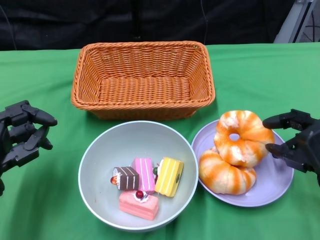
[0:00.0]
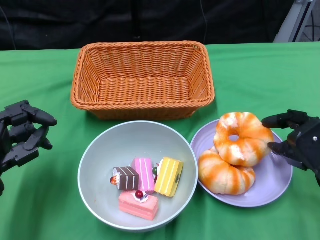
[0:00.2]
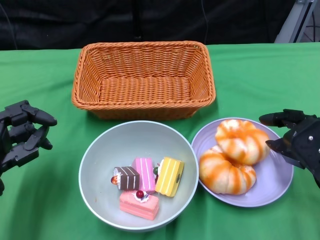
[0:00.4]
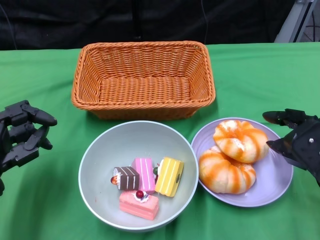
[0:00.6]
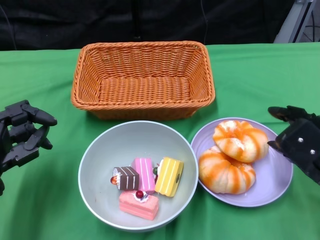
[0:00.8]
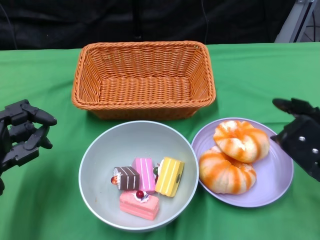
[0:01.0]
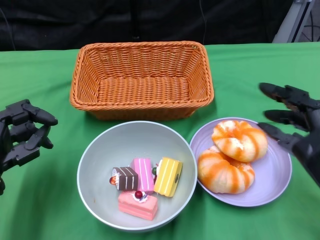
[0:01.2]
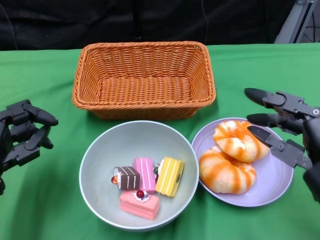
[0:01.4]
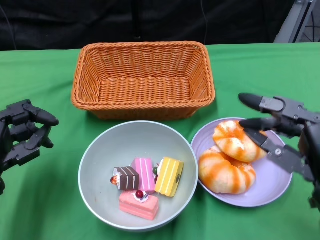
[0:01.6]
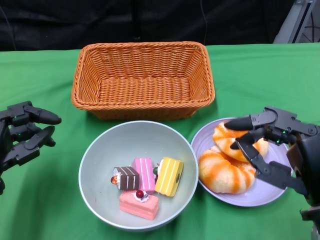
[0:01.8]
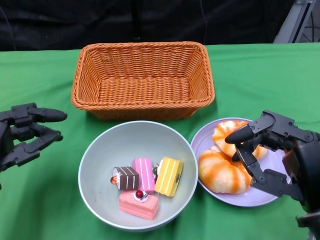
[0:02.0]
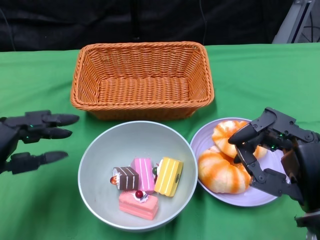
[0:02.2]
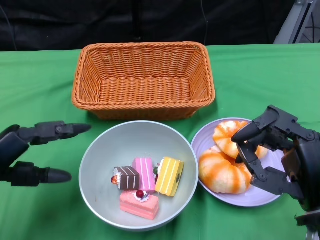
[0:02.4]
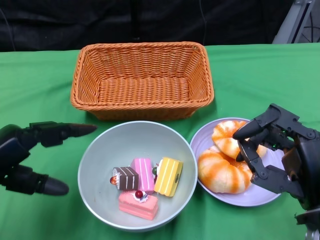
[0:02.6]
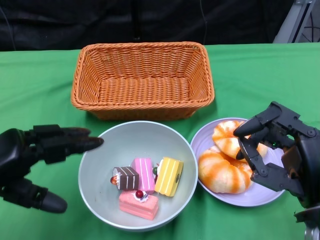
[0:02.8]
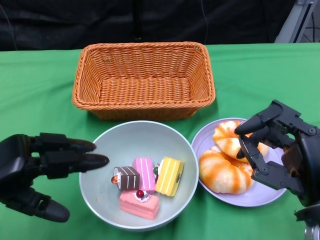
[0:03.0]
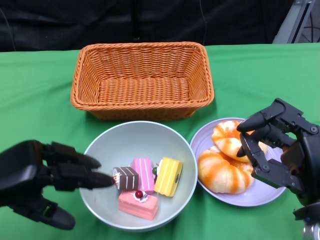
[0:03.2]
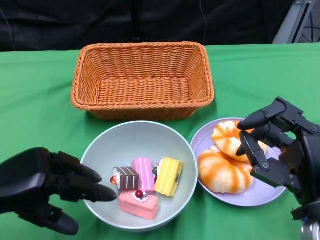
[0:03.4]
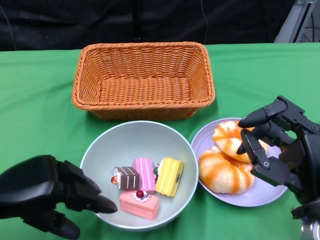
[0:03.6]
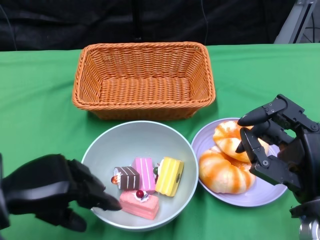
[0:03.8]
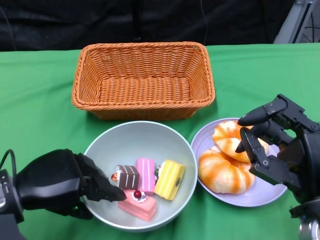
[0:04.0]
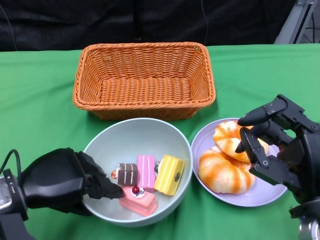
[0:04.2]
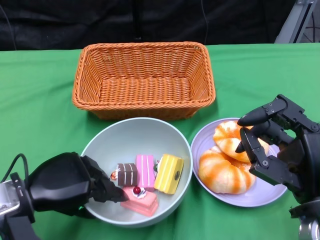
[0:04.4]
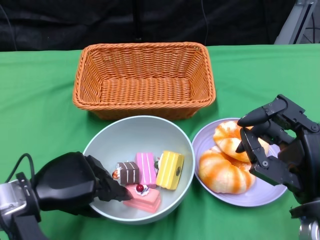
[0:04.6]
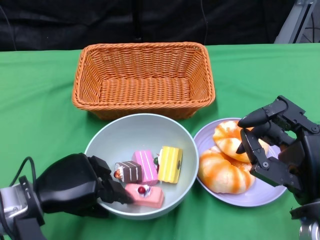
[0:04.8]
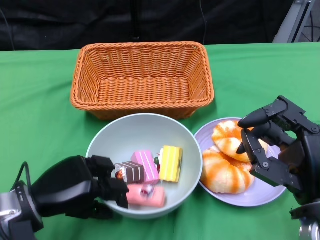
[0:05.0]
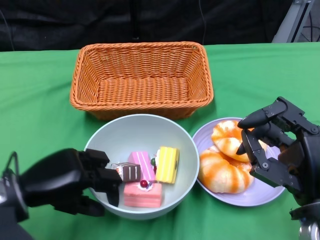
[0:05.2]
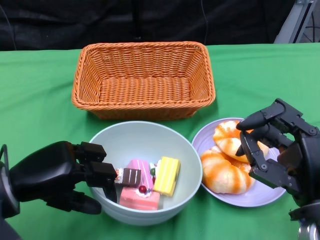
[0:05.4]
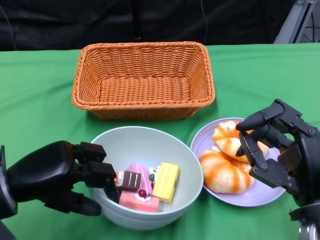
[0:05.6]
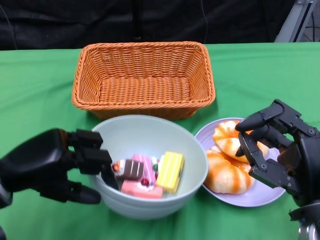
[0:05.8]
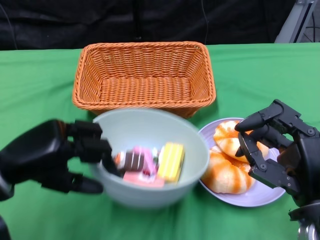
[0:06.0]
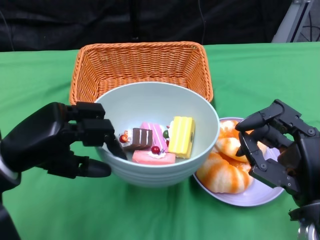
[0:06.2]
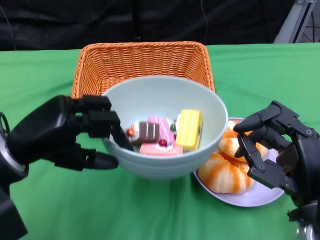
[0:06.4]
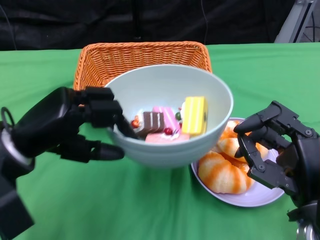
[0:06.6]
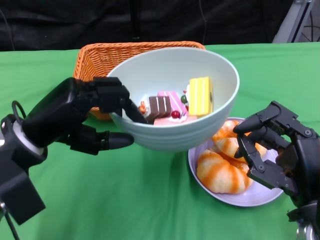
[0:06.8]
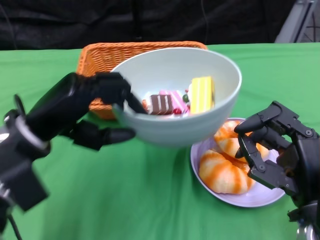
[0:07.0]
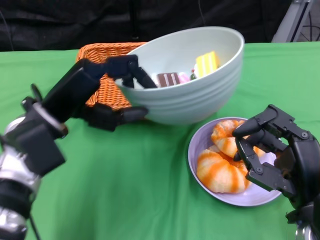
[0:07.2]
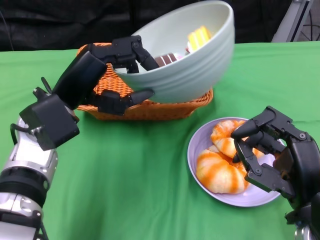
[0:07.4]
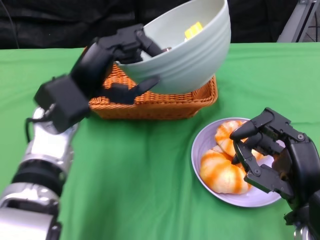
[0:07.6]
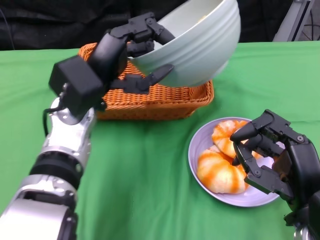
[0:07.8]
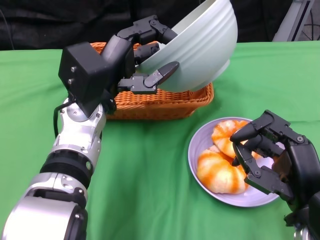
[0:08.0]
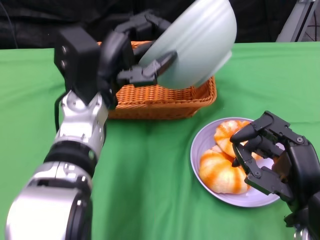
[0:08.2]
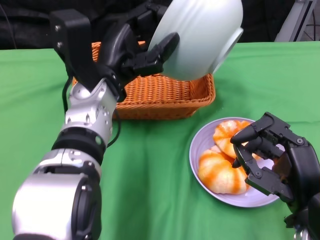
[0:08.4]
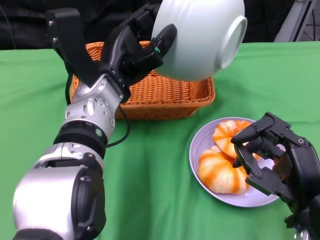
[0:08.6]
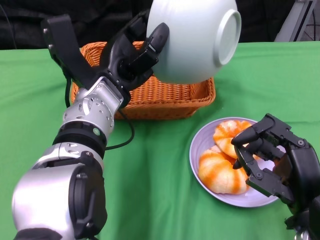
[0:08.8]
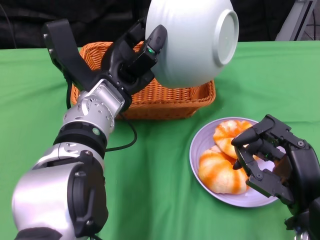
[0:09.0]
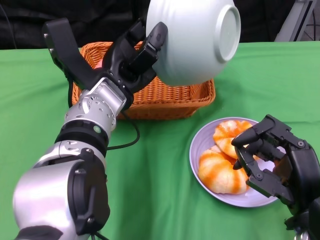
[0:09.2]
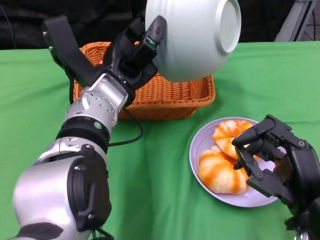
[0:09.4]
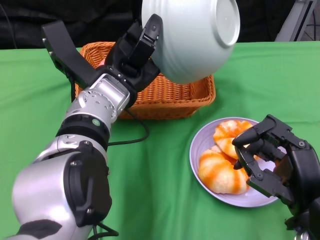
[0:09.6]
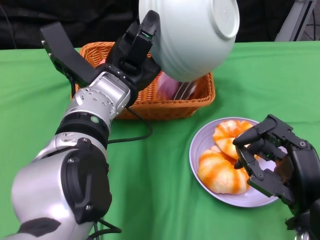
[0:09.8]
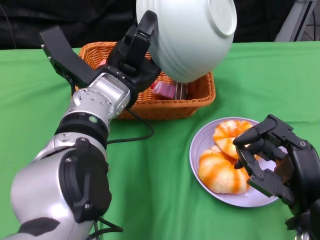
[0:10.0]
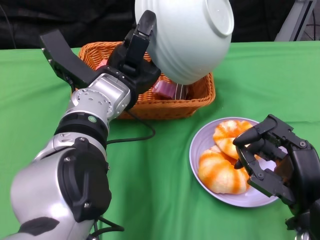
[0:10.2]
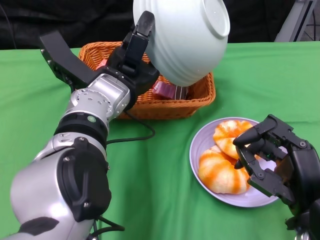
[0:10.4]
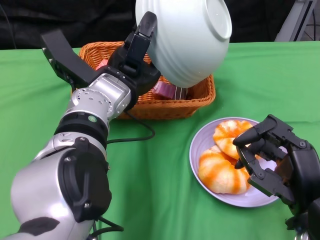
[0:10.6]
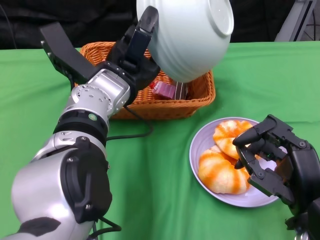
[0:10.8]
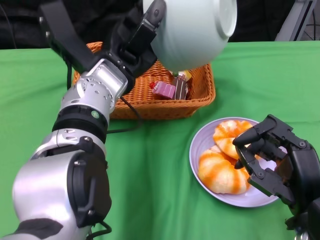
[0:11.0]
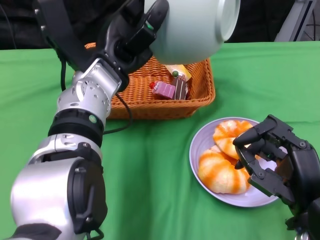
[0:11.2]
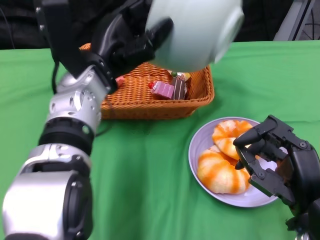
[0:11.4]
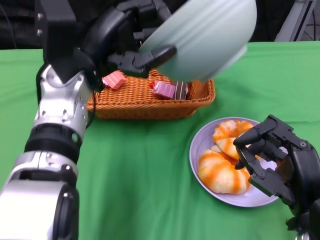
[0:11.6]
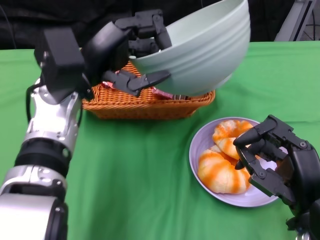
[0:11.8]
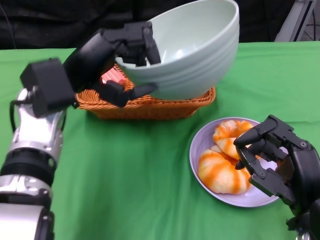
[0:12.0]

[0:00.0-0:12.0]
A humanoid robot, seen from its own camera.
Step, 0:01.2 to 0:05.0: Grasp the bowl with the left gripper.
0:00.0 to 0:01.6: The right hand travels backward and upward by some 10 cm.
0:01.6 to 0:03.0: The left hand heads upward, covering some 5 cm.
0:03.0 to 0:04.4: The left hand goes approximately 5 cm to the right.
0:04.4 to 0:06.0: The left hand goes about 5 cm upward.
0:06.0 to 0:07.6: The left hand heads to the right and forward, covering roughly 10 cm.
0:07.6 to 0:09.0: The left hand is displaced to the right by roughly 5 cm.
0:10.4 to 0:12.0: The left hand travels to the left by roughly 10 cm.

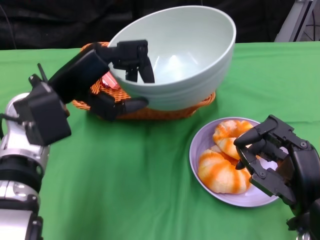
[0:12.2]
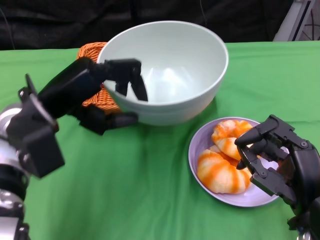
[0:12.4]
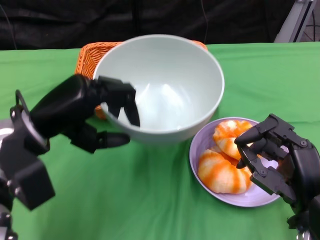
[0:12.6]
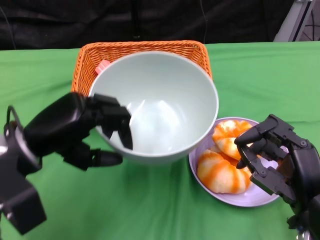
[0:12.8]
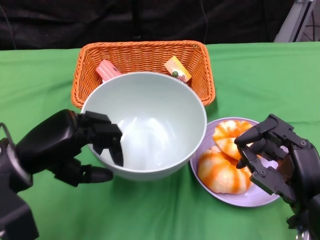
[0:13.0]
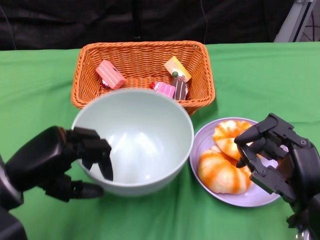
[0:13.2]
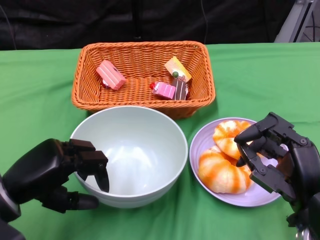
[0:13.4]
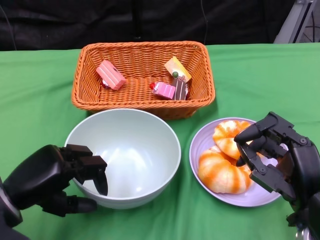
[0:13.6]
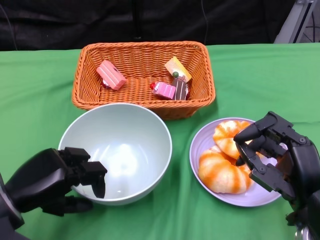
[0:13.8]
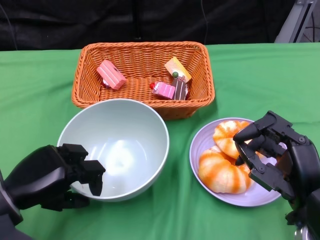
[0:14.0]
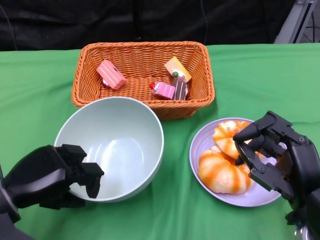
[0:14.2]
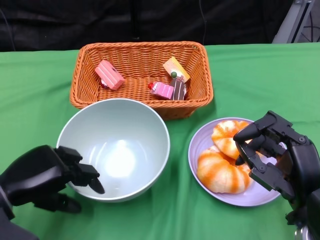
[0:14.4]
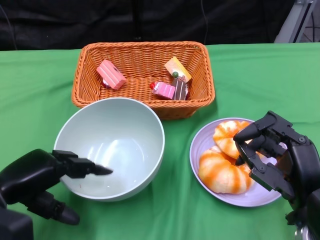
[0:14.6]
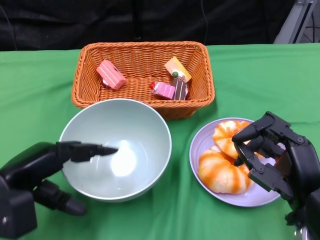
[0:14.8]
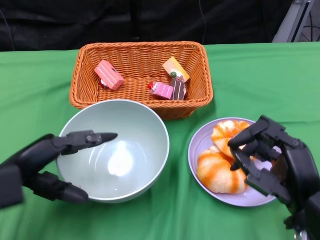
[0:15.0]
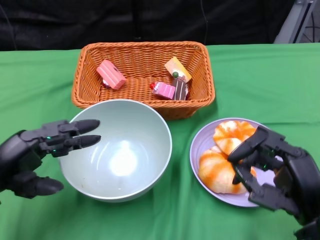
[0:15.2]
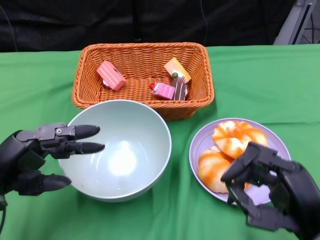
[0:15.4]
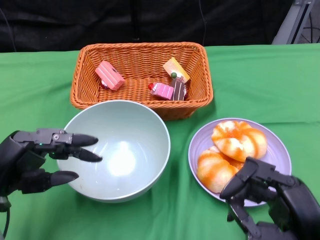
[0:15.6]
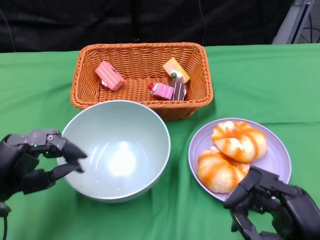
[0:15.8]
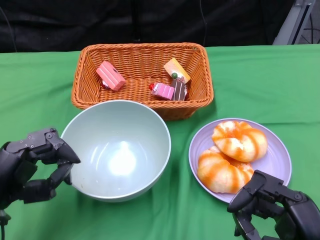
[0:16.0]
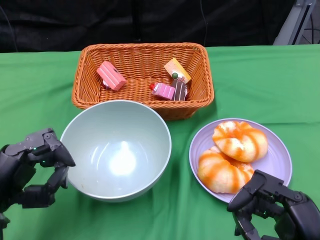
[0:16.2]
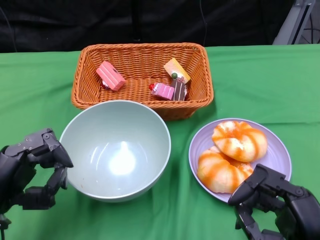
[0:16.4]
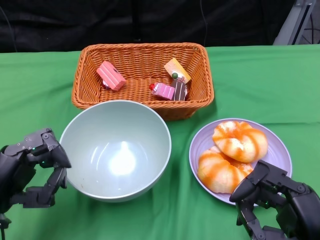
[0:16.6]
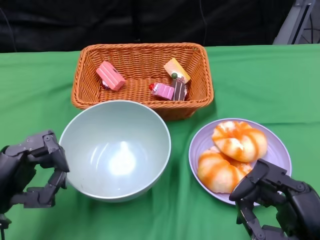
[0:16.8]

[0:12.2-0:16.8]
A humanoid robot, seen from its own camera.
Step, 0:12.4 to 0:15.0: Place the bowl on the table with the left gripper.
0:12.2 to 0:13.8: The left hand heads downward, backward and to the left, covering approximately 15 cm.

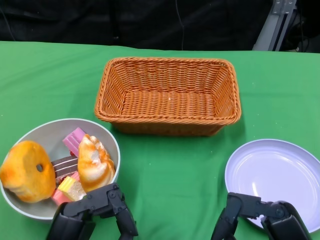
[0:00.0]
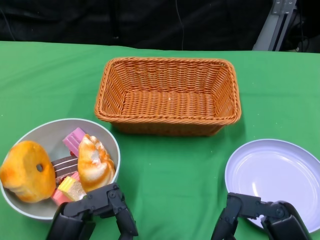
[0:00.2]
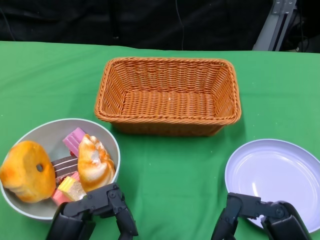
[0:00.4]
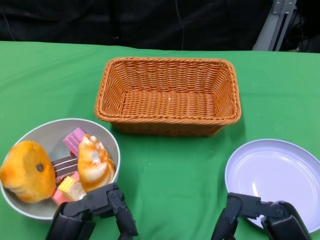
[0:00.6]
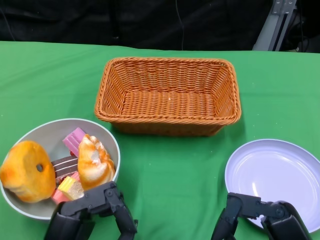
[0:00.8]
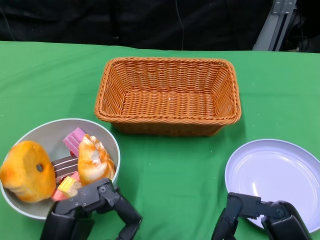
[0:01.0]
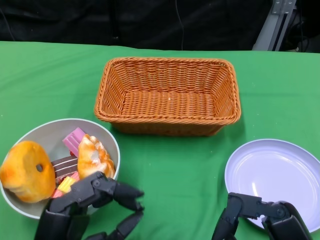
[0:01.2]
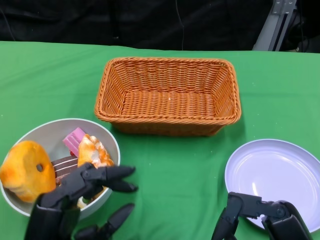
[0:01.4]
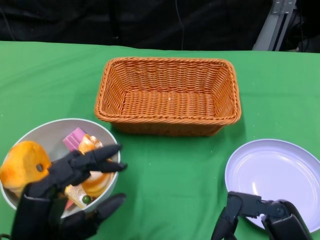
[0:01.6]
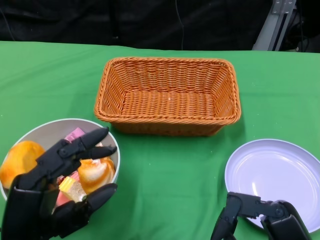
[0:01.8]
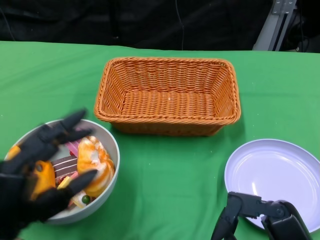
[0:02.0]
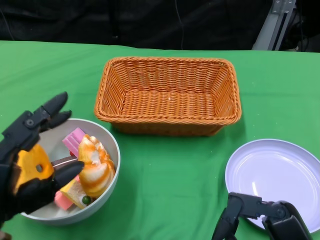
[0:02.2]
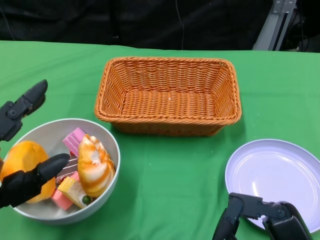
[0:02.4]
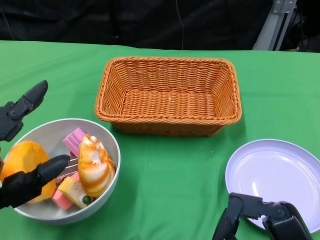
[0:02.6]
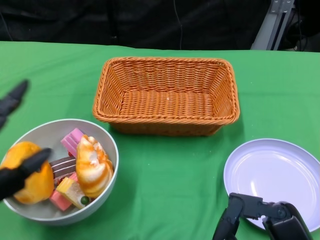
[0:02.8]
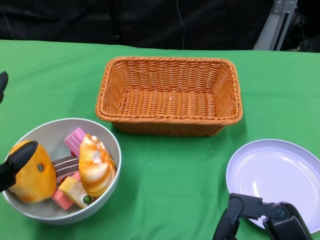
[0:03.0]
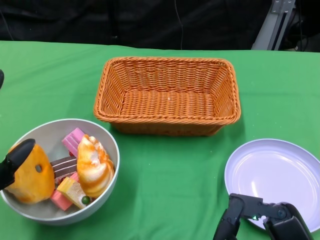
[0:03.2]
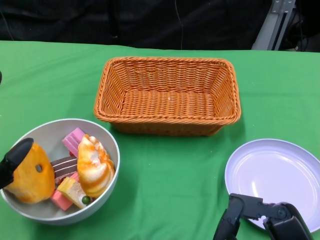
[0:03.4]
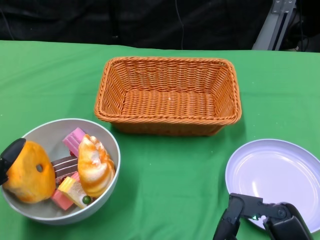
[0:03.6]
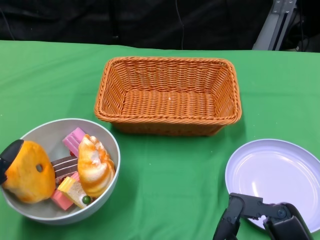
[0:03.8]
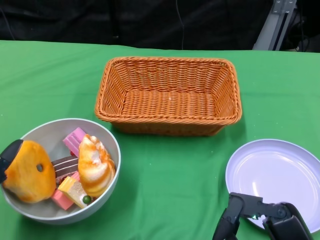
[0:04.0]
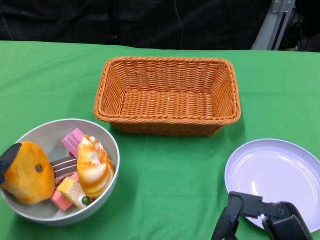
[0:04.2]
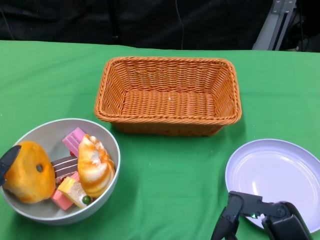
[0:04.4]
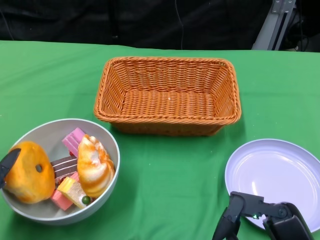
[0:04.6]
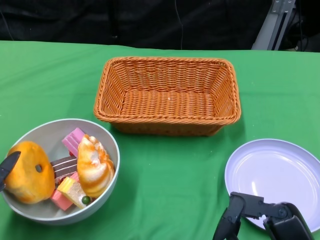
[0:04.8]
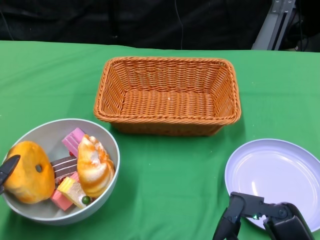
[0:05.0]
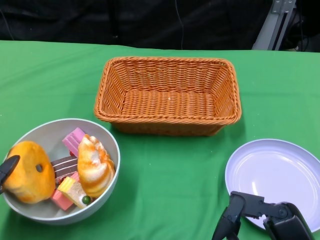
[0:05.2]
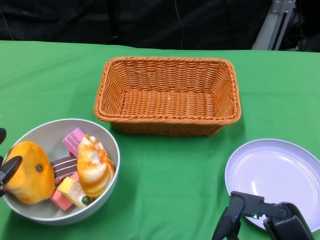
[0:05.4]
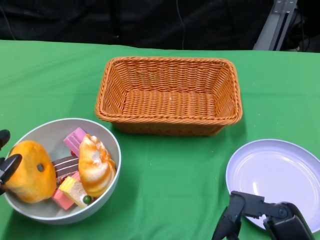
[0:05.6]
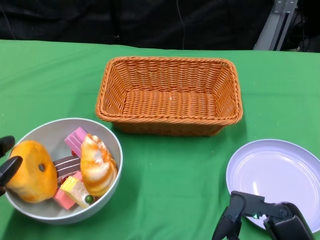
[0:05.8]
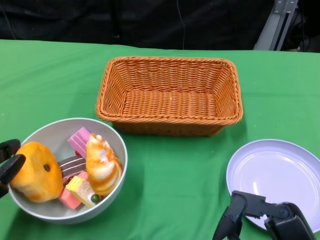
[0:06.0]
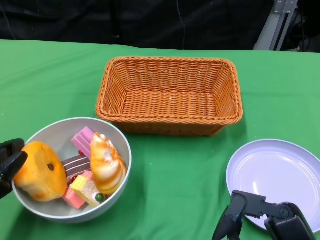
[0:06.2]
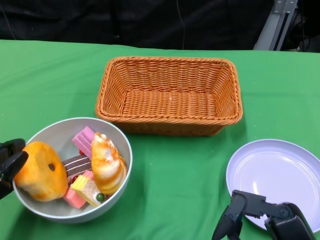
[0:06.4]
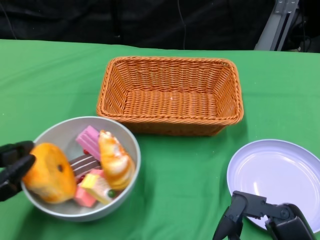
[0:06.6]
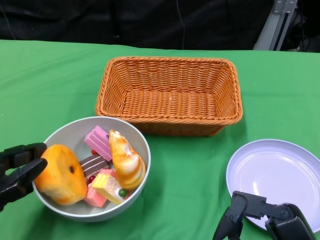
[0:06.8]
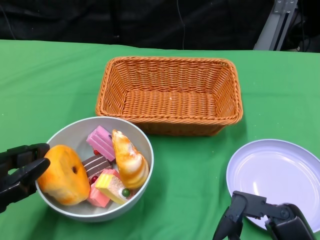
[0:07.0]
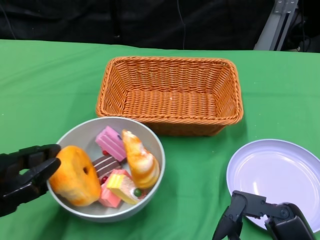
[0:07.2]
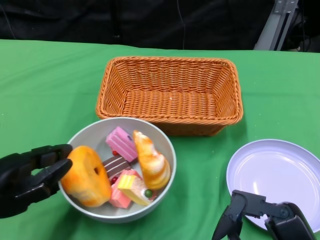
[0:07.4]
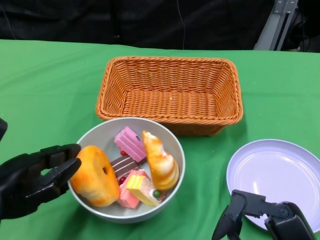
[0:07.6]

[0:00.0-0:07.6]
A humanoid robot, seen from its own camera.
0:01.6 to 0:03.0: The left hand heads to the left, covering some 10 cm.
0:06.0 to 0:07.6: The left hand heads to the right, covering about 5 cm.
